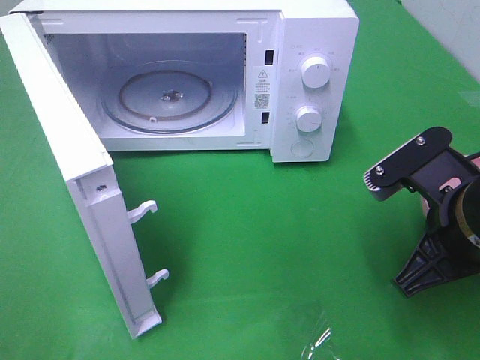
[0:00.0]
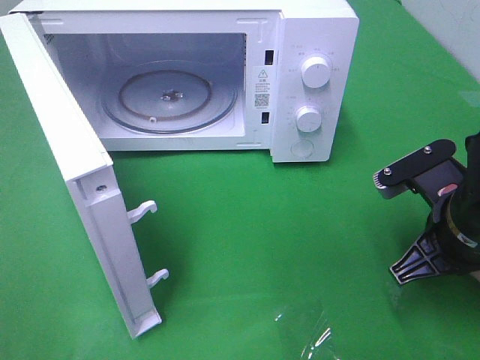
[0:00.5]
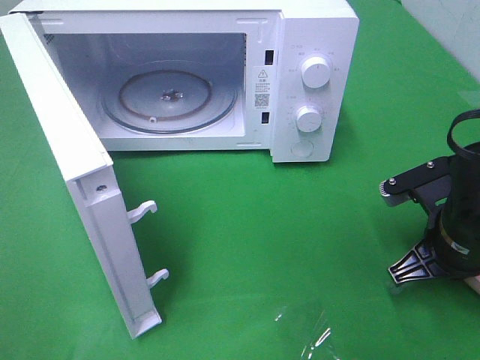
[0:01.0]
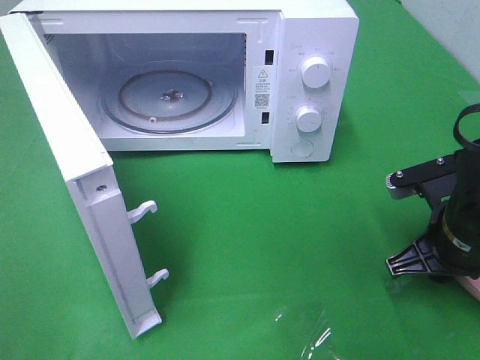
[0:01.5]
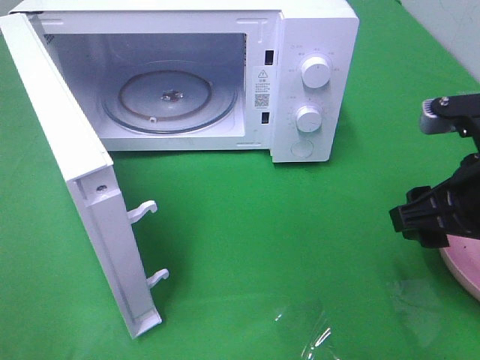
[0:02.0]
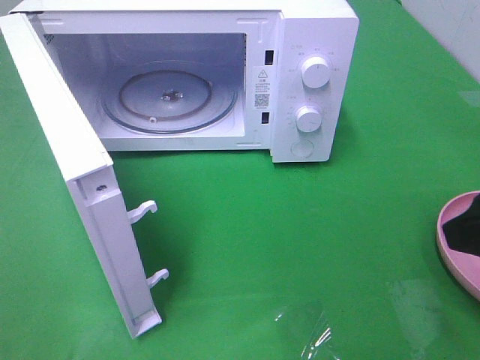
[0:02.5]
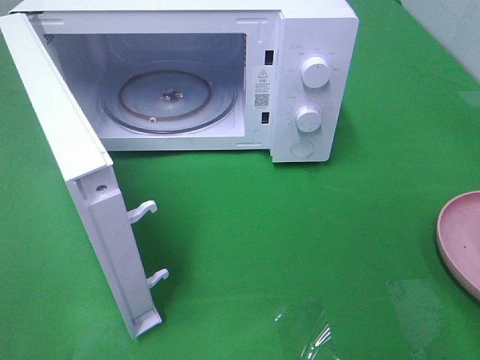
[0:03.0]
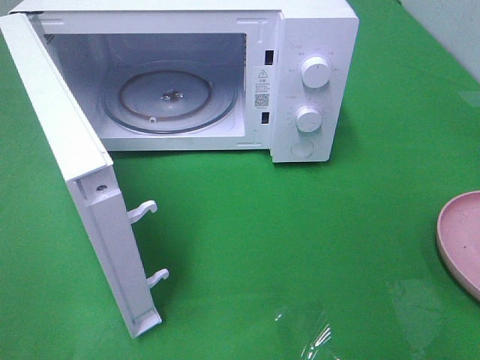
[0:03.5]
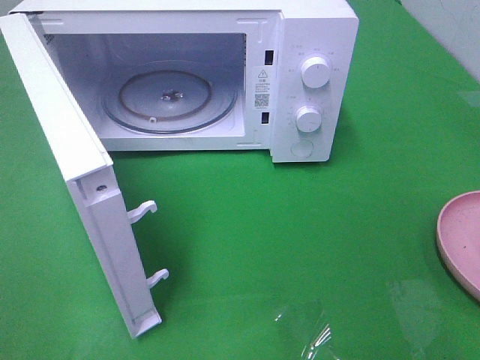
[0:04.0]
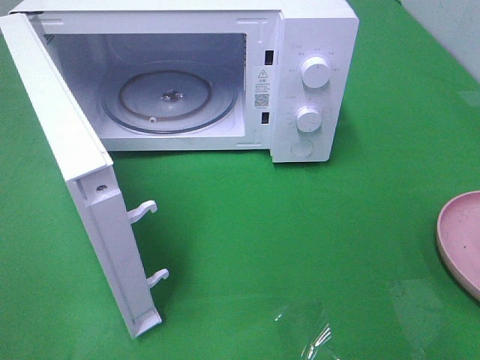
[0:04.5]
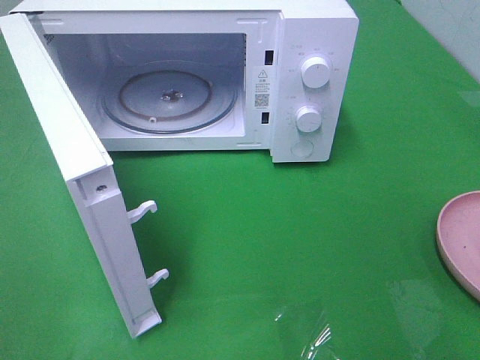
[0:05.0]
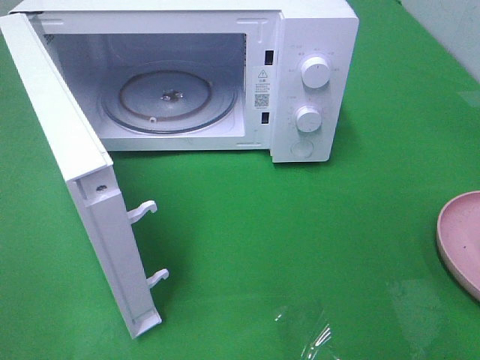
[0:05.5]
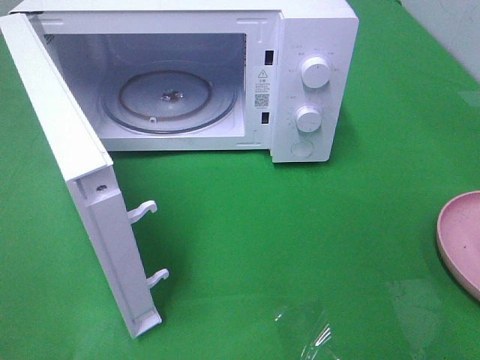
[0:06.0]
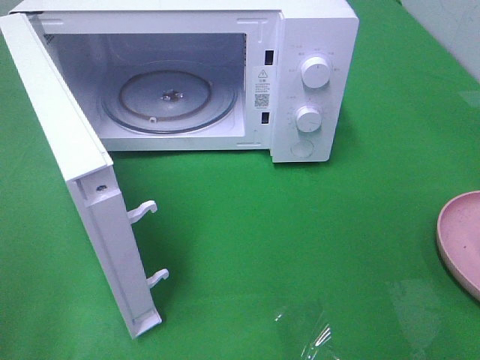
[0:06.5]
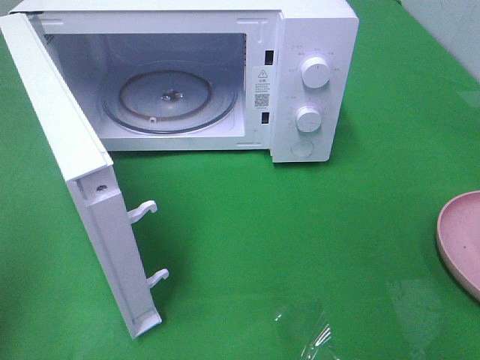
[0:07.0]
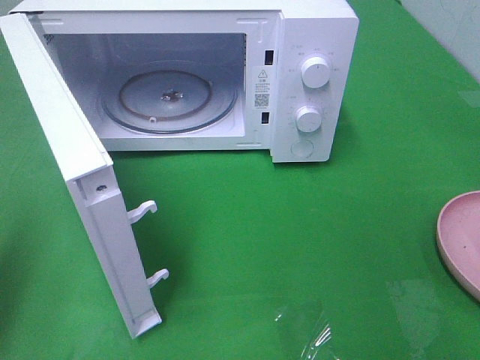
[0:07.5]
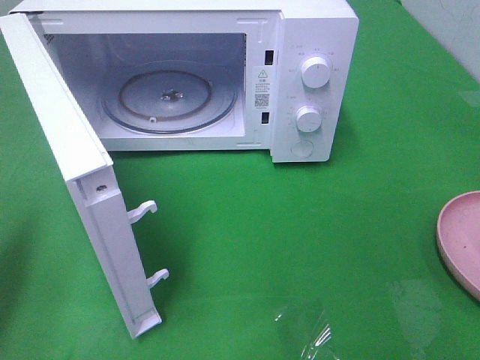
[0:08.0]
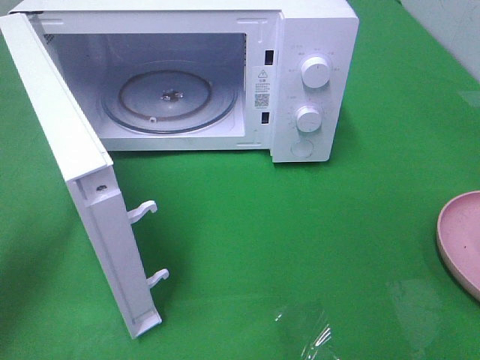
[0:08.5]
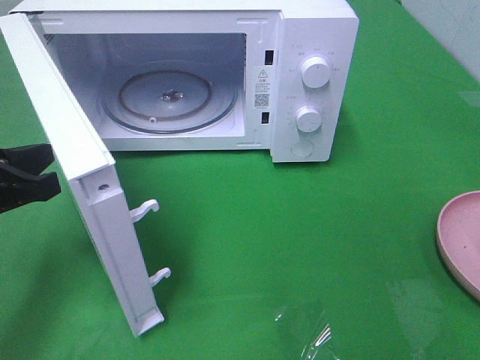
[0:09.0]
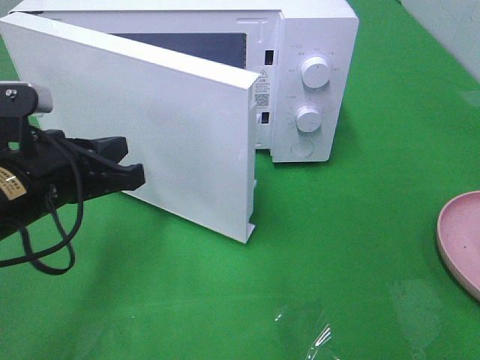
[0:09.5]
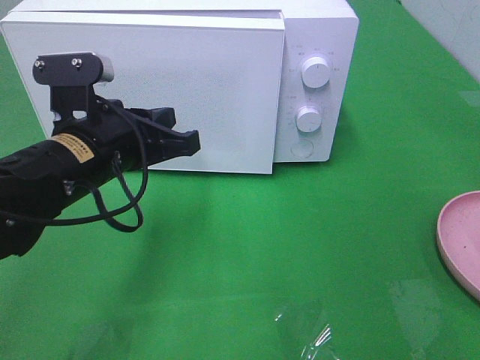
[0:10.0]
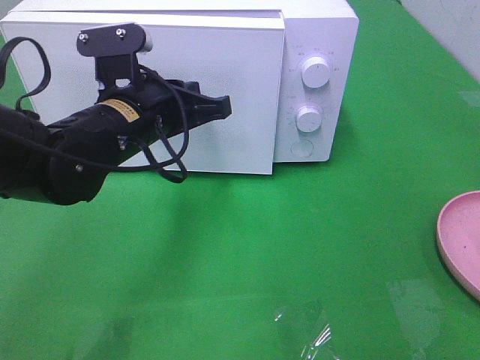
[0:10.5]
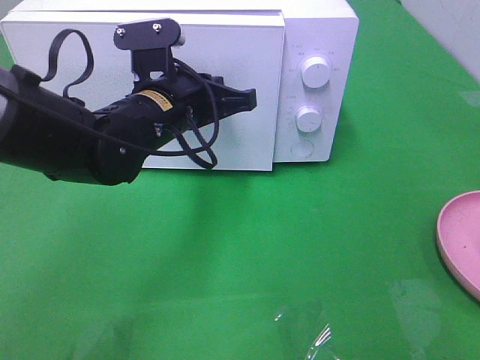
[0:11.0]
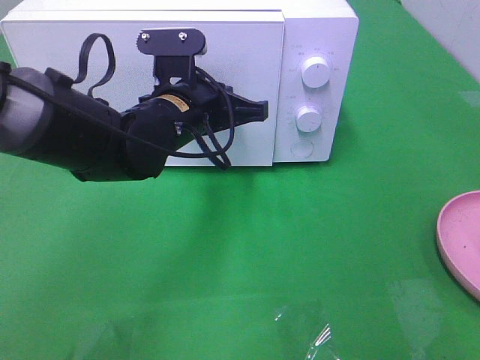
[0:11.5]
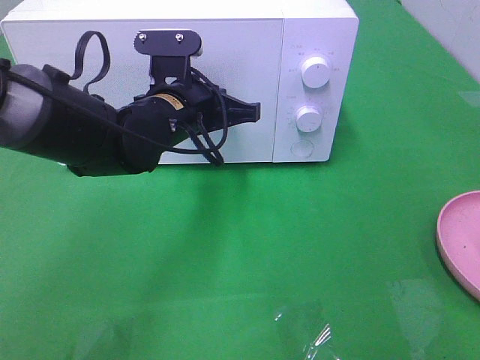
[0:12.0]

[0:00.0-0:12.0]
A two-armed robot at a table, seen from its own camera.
Task of the whole recording: Heat the burger.
0:00.0 to 0:02.0: The right gripper reaches roughly 5 cm downward, then returns, and opens up.
0:02.0 to 0:04.0: The right gripper travels backward, to the right and upward by approximately 20 cm.
0:06.0 to 0:08.0: The left gripper goes approximately 20 cm forward and downward, and closes its fingers.
0:08.0 to 0:10.0: The left gripper goes some 20 cm to the right.
0:10.0 to 0:12.0: The left gripper goes about 10 cm forward and to the right.

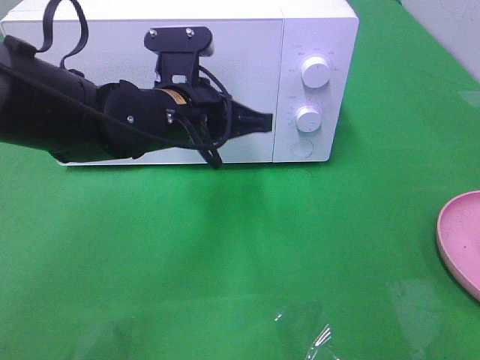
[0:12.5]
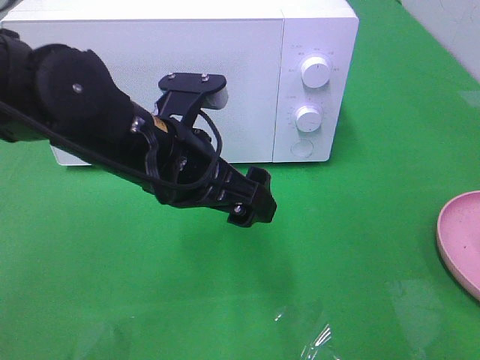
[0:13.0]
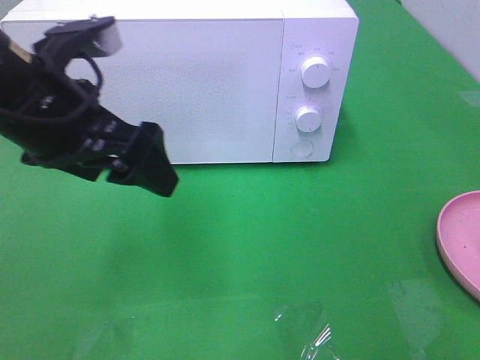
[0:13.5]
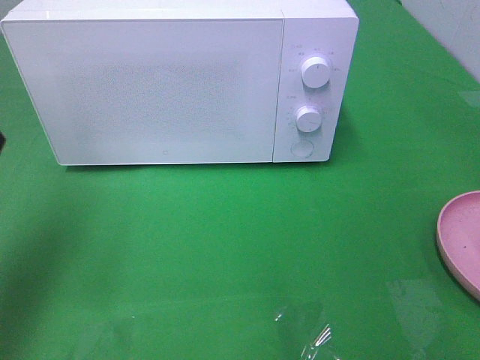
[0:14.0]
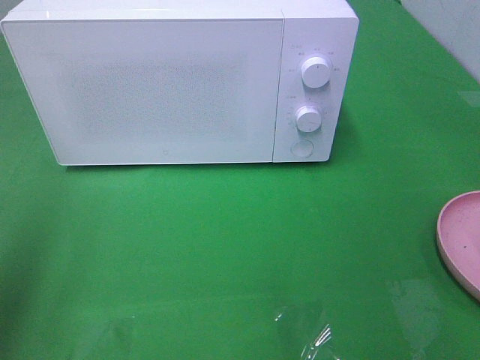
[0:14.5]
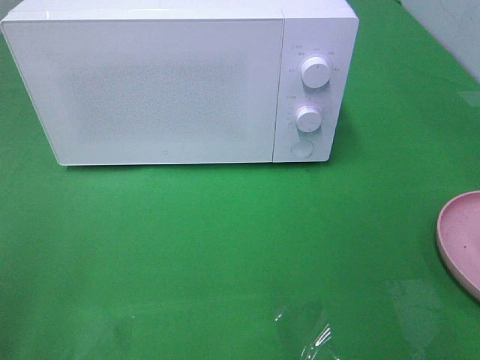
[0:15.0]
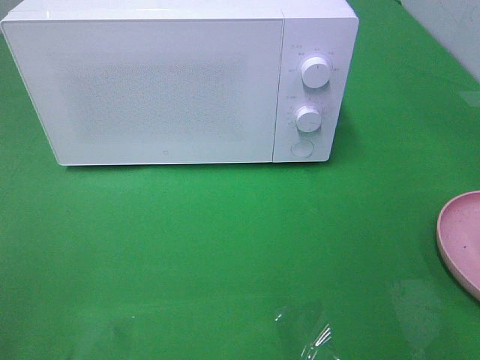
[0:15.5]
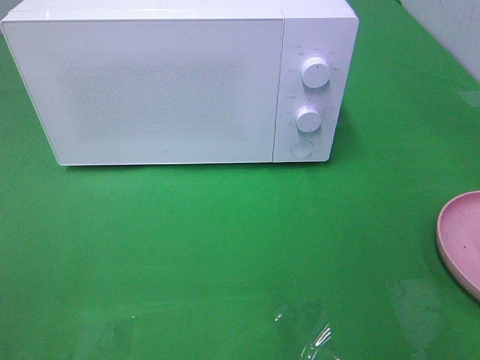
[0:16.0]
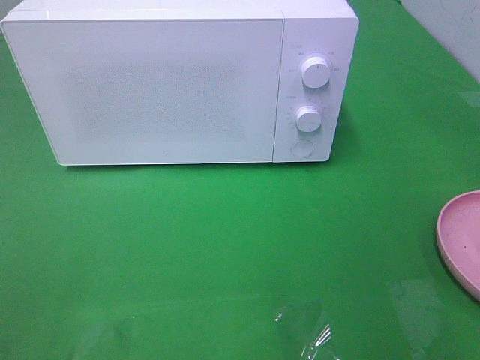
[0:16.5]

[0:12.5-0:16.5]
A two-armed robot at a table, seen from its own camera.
Task of the whole recording: Heat the burger.
0:12.5 to 0:14.5: The left gripper goes roughly 35 cm to the left, backward and upward, and opens.
0:14.5 to 0:16.5: The left gripper heads backward, covering about 15 cm.

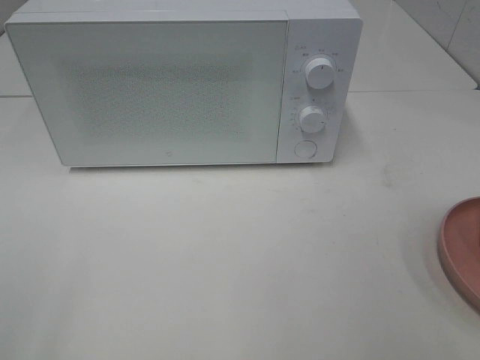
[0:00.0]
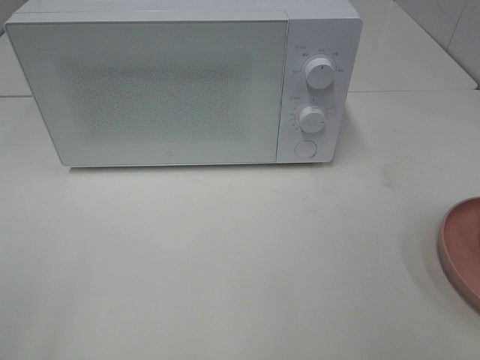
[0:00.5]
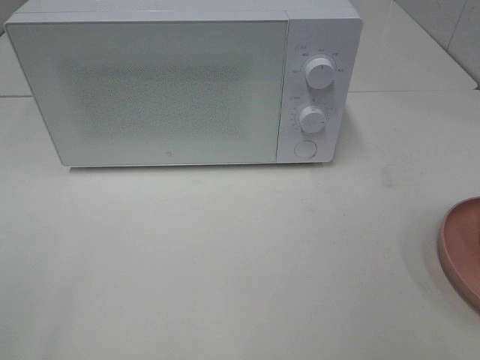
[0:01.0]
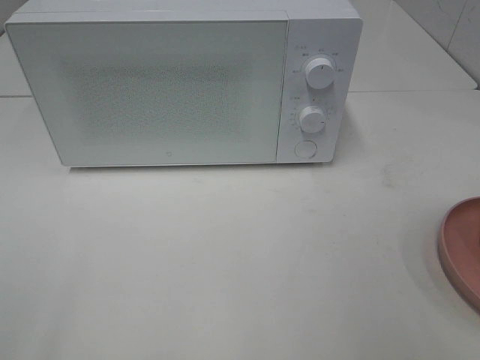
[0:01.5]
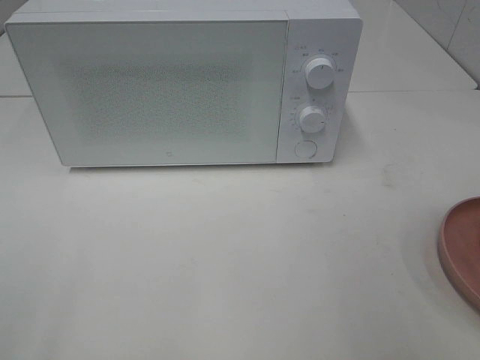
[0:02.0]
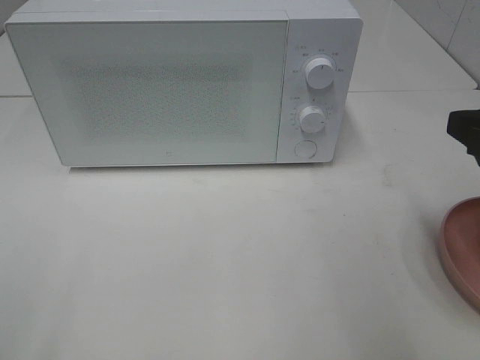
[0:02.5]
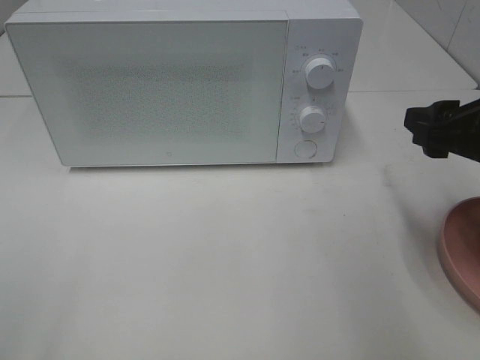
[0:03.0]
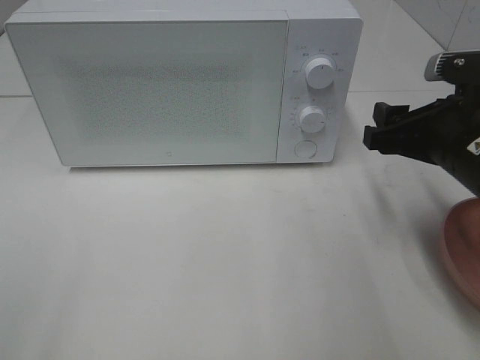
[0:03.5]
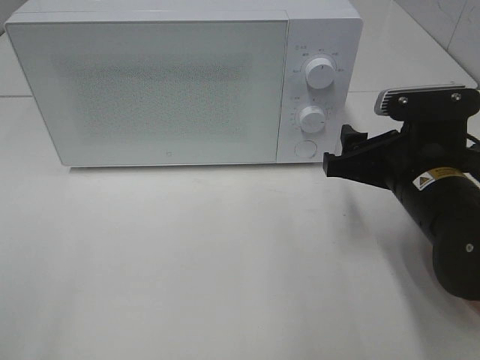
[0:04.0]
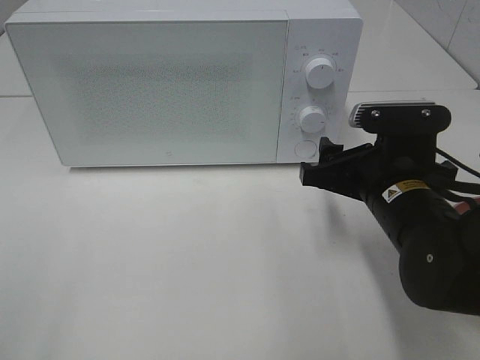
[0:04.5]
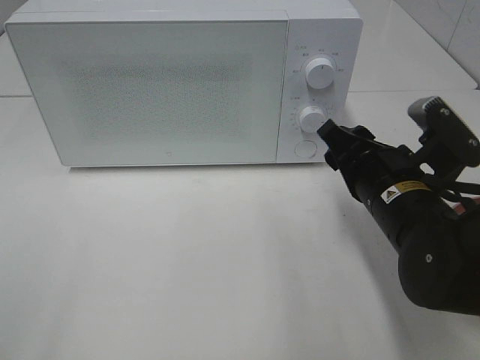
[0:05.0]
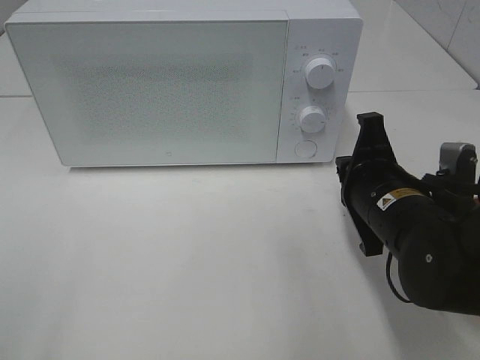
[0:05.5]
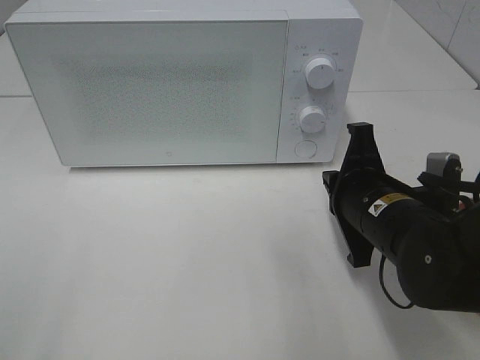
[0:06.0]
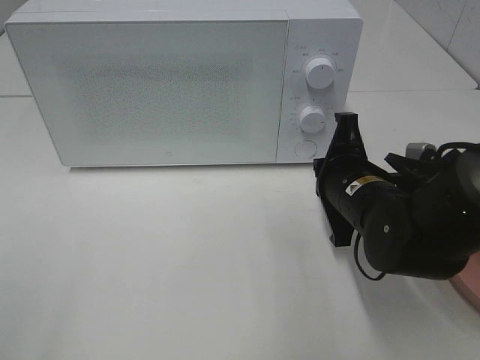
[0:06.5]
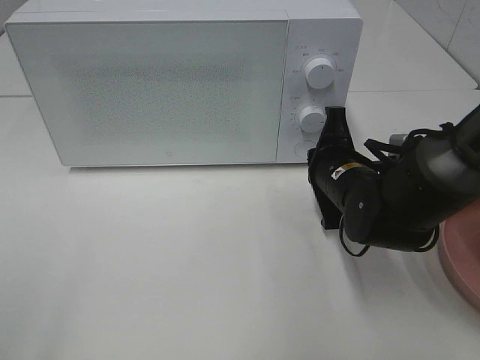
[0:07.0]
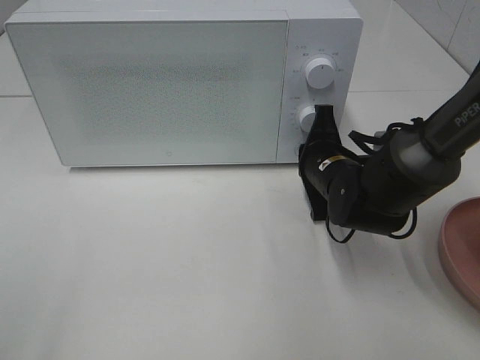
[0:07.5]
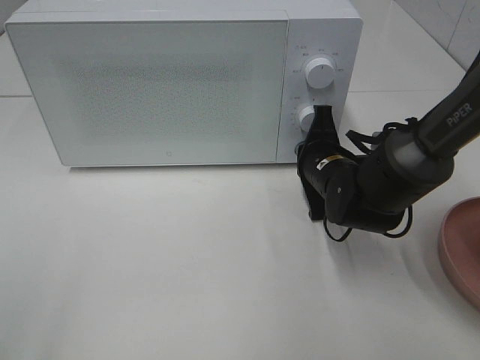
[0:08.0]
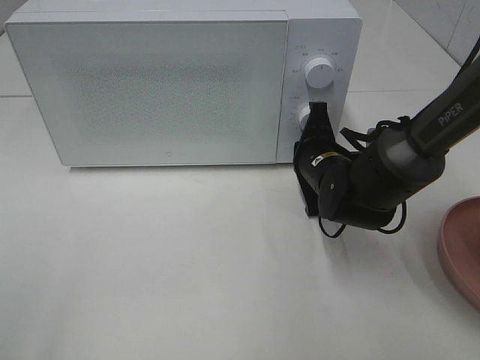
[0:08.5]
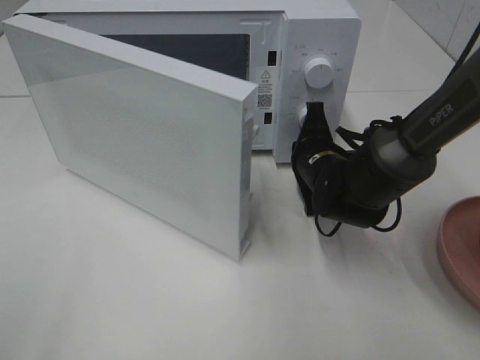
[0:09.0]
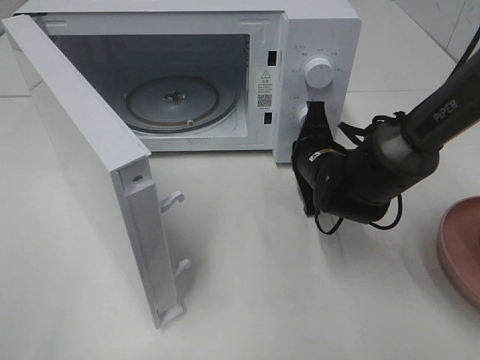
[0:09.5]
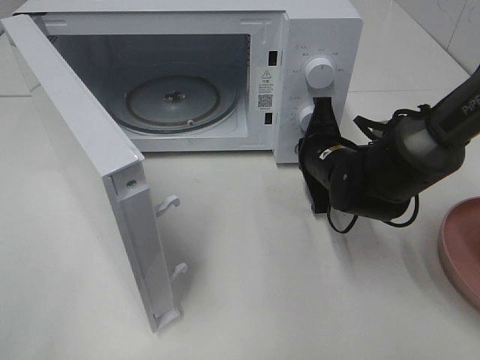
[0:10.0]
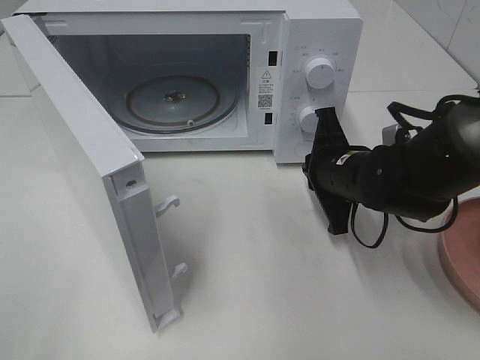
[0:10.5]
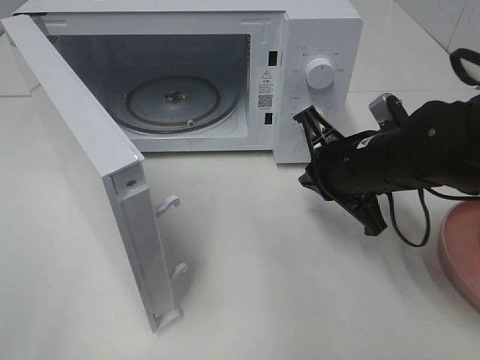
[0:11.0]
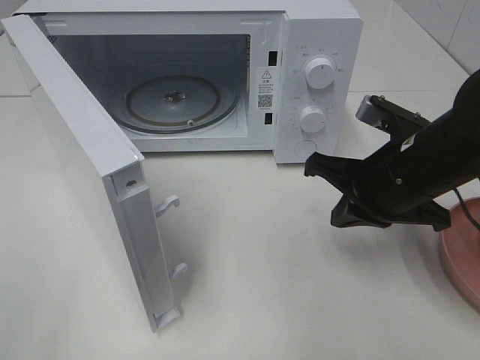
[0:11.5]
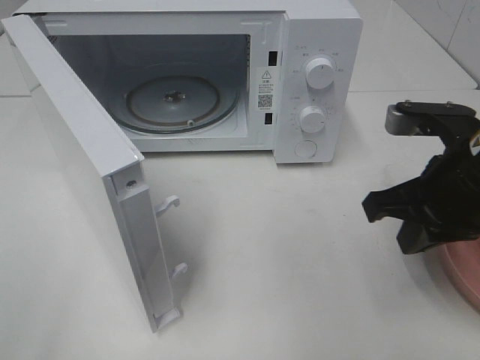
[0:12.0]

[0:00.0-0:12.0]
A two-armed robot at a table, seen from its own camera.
Task of the whole recording: Heat the burger.
Step, 0:00.0 to 0:10.0: Right hand: press the switch.
0:02.0 to 0:04.0: The right gripper moves forward, downward and to the left, about 20 cm.
0:04.0 to 0:06.0: The right gripper closes.
0:06.0 to 0:08.0: The right gripper heads forward, covering approximately 10 cm.
0:10.0 to 0:12.0: The right gripper goes about 20 cm backward, upward and to the right.
